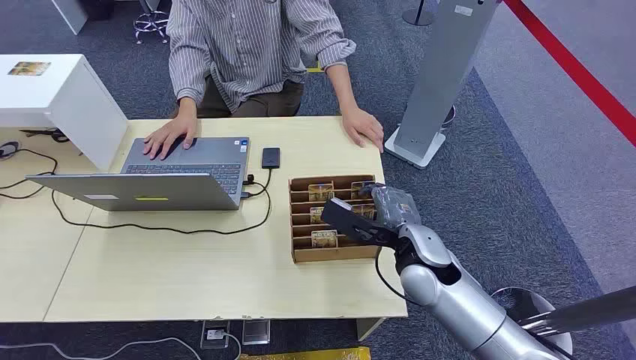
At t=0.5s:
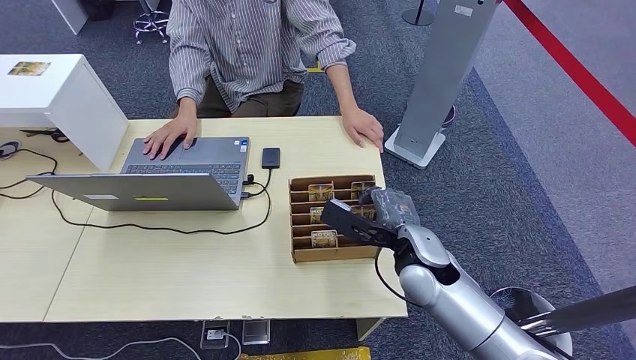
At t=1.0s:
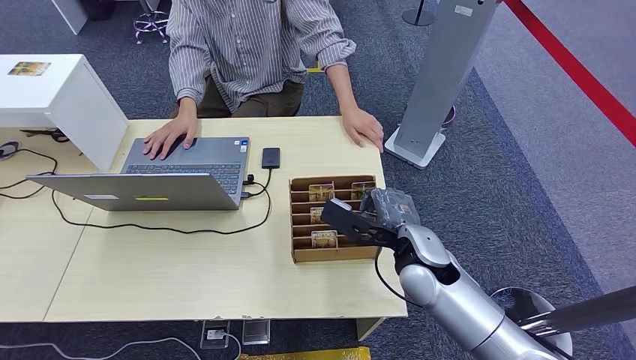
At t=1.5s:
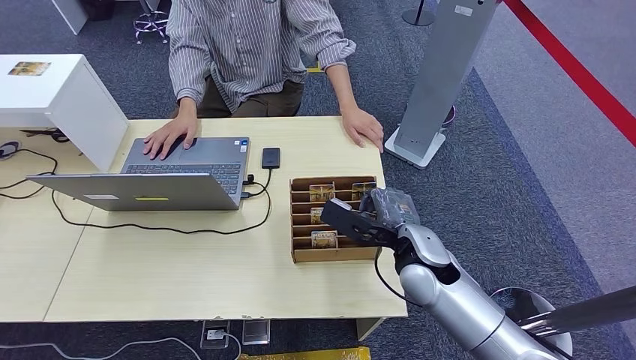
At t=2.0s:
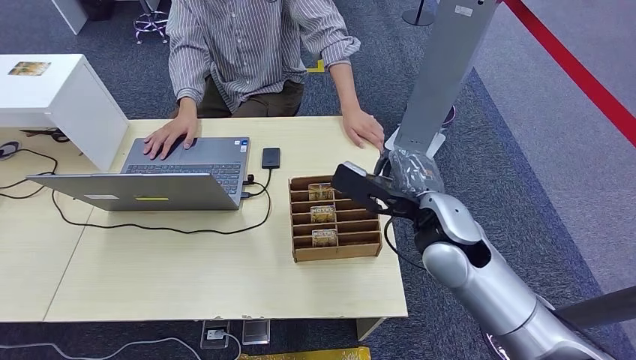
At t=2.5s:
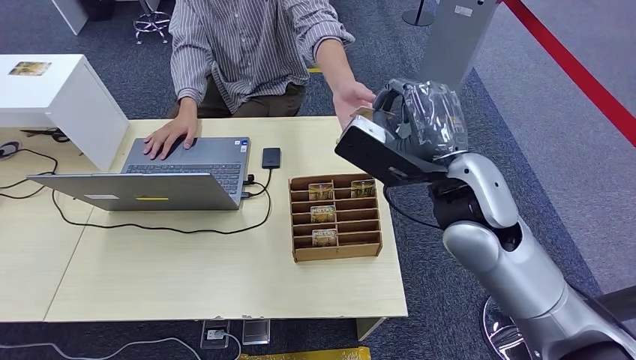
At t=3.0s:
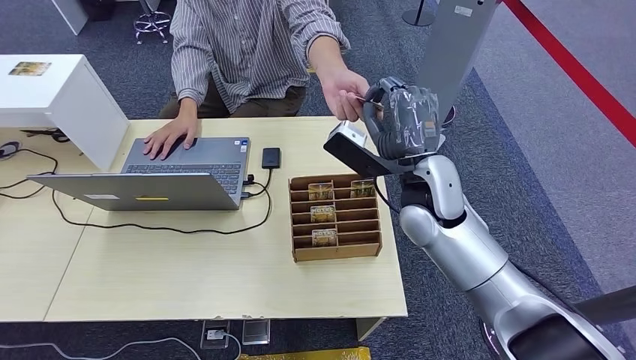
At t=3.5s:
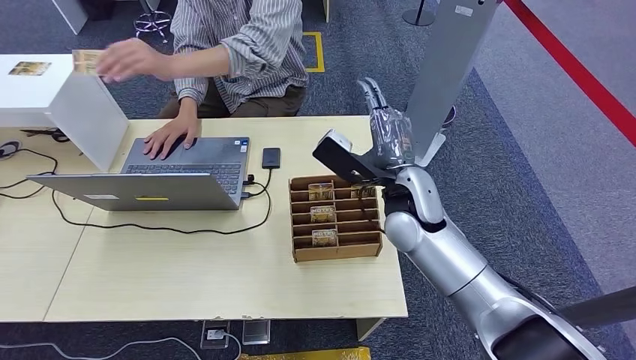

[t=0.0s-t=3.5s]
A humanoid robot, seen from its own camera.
Step, t=0.0s to t=2.0s: Pick up the room card from the card holder.
t=2.0s to t=3.5s: The right hand is displaced forward by some 5 cm, and goes upward and returns, roughly 10 cm each way.
